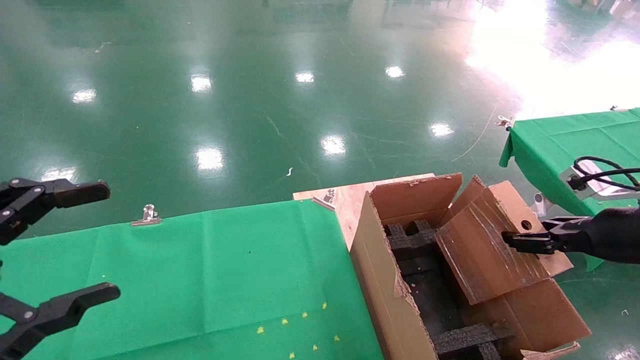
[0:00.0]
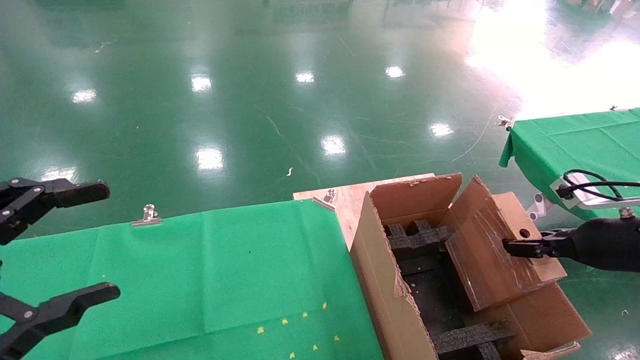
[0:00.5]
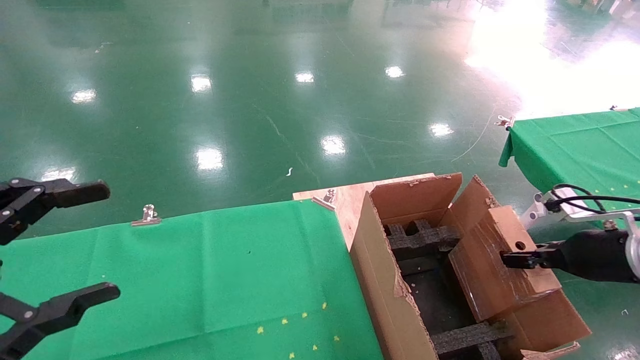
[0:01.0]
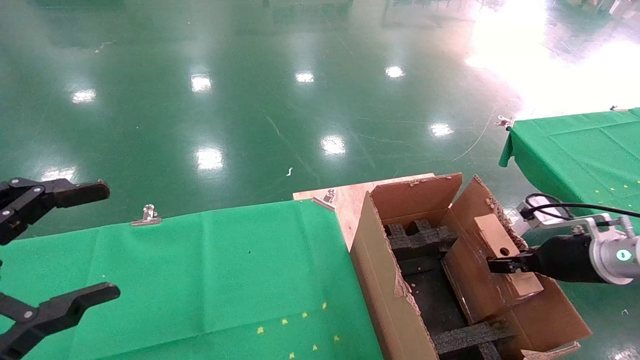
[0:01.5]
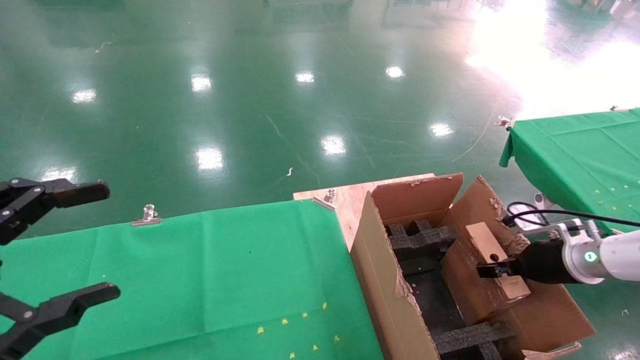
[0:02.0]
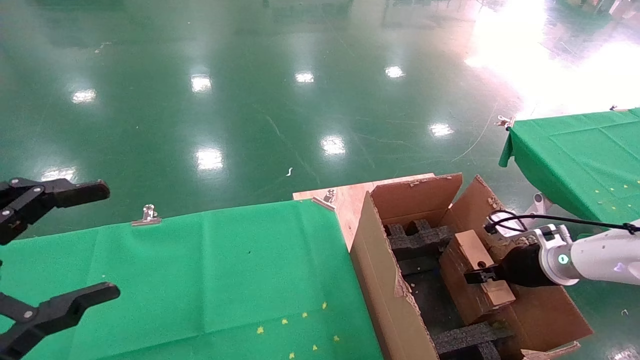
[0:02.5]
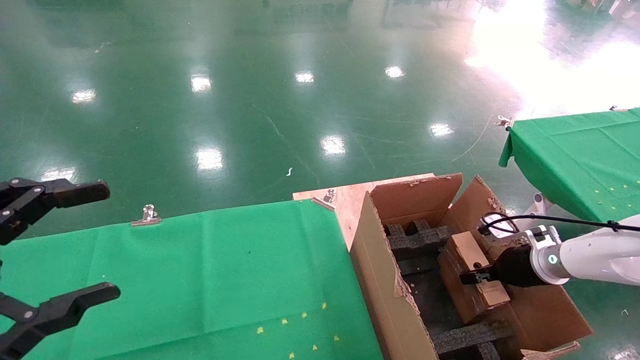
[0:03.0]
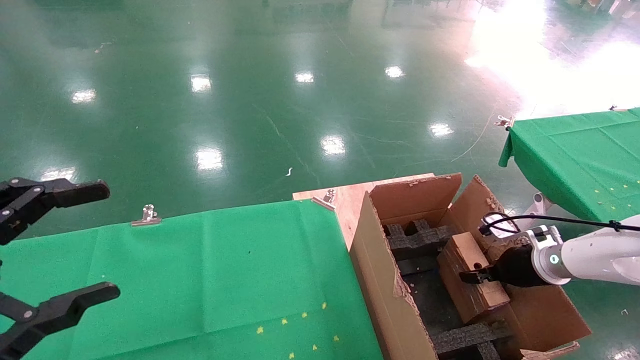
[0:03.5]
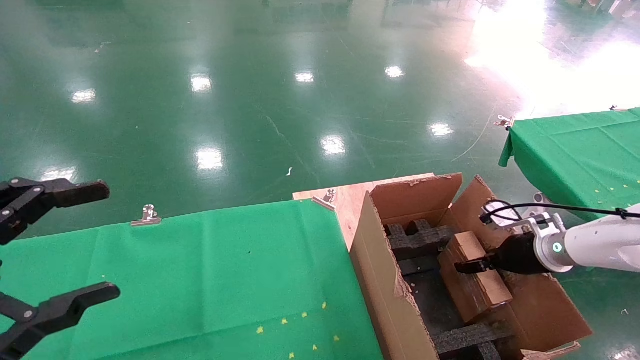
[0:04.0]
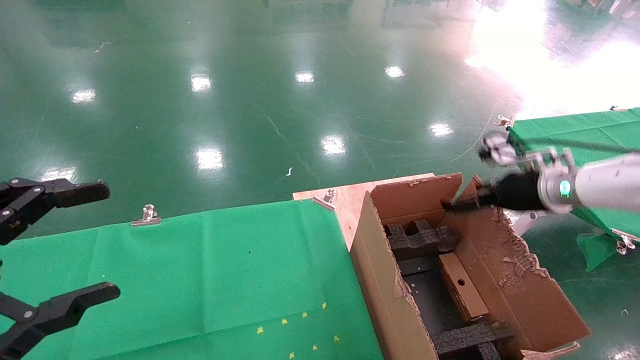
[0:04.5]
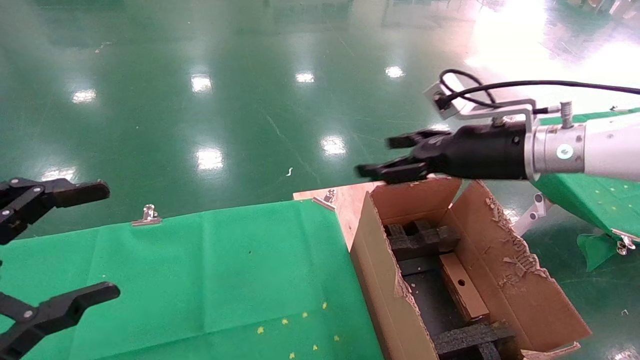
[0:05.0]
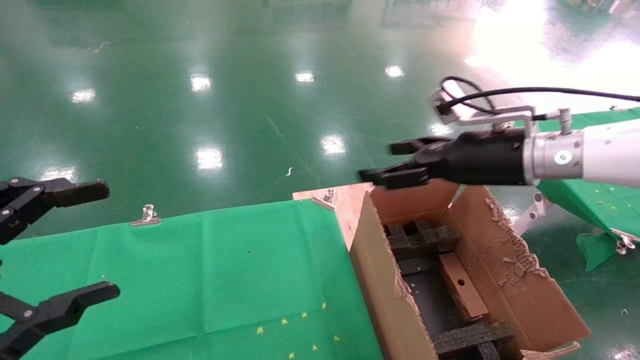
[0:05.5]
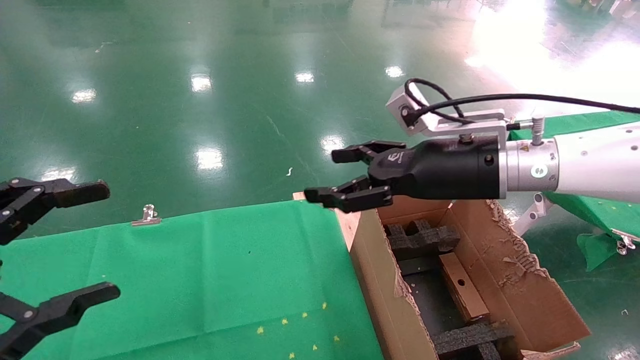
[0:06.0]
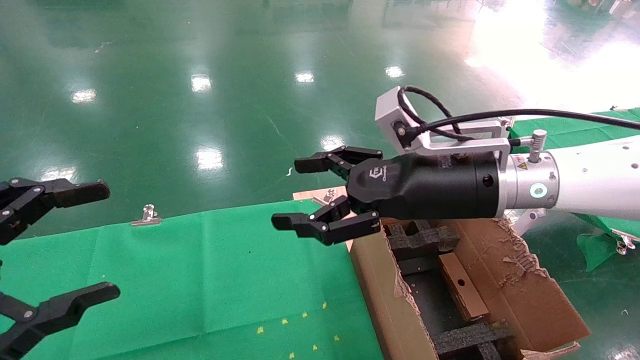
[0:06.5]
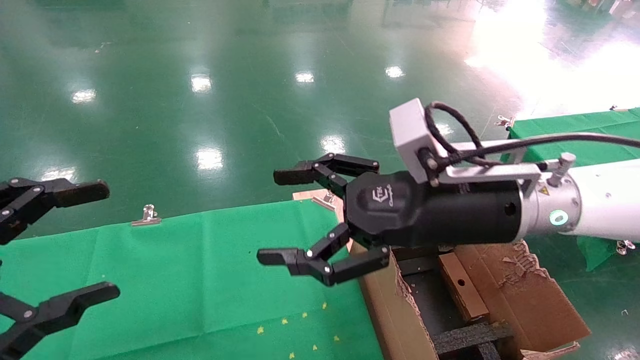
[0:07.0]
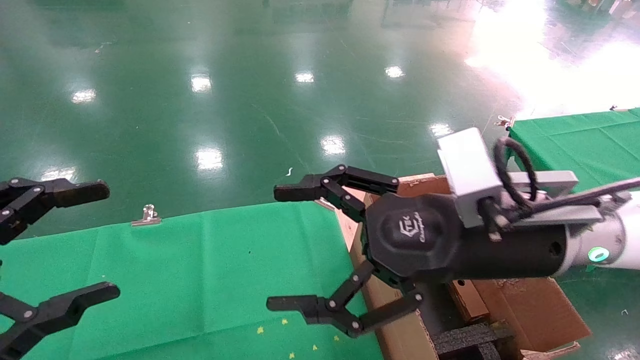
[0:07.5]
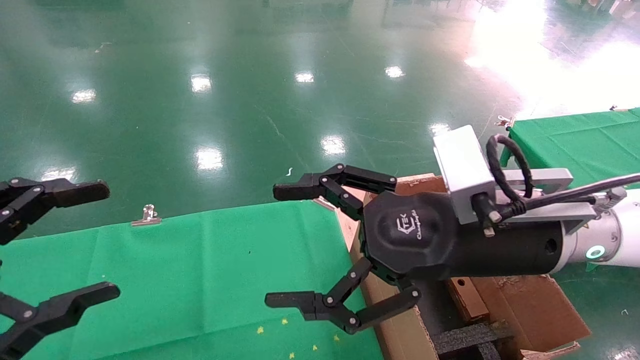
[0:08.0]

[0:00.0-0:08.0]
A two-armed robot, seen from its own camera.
Task of the whole recording: using a robotic arm to pick up a cardboard box and palace it the carton.
Step, 0:00.0 to 0:04.5: Place the mouse and the power cord paper box into the container.
0:00.0 to 0:02.0: The right gripper travels downward and forward by some 15 cm.
0:02.0 to 0:04.0: The right gripper opens.
0:04.0 to 0:06.0: The right gripper heads to the left and upward, covering some 30 cm, and opens up.
0:06.0 to 0:08.0: The right gripper goes roughly 10 cm backward.
